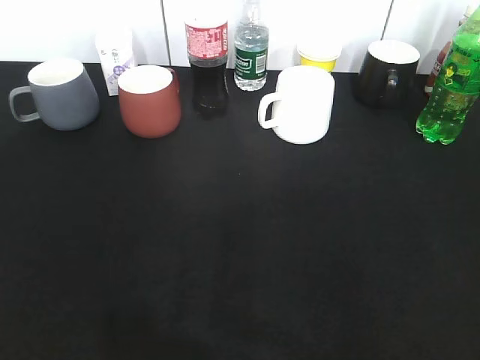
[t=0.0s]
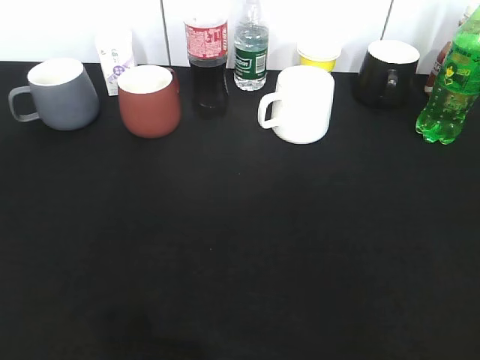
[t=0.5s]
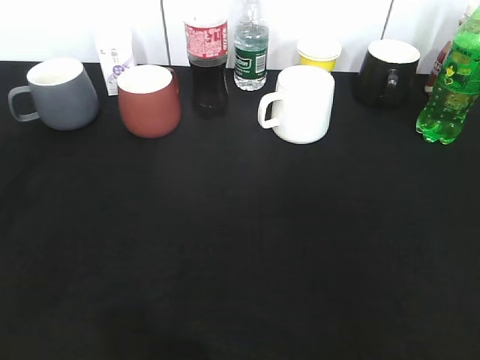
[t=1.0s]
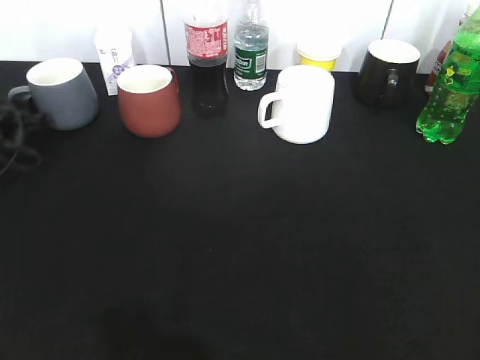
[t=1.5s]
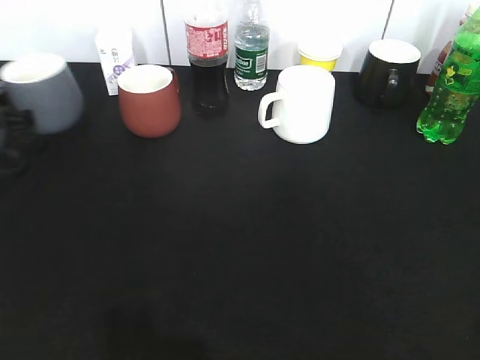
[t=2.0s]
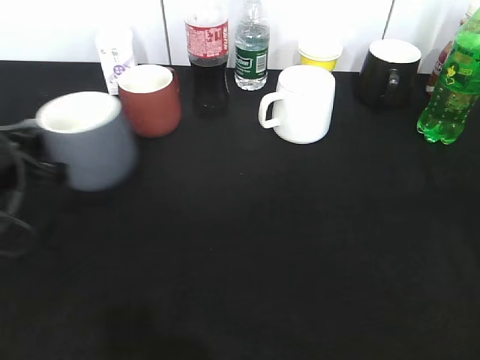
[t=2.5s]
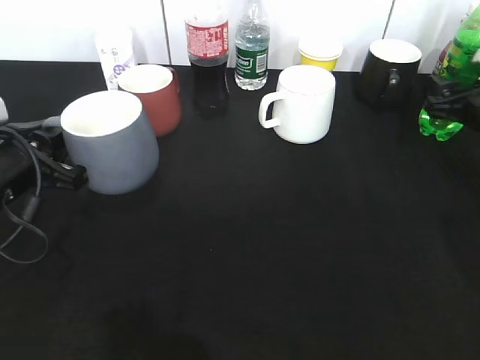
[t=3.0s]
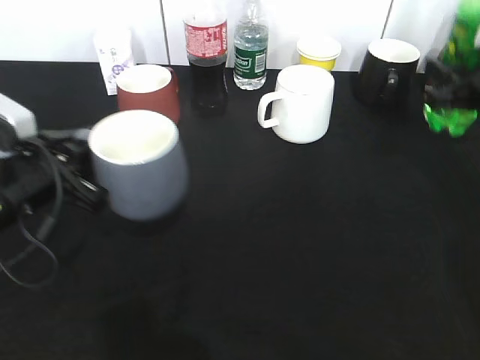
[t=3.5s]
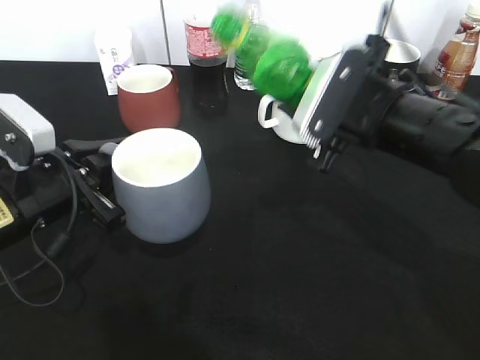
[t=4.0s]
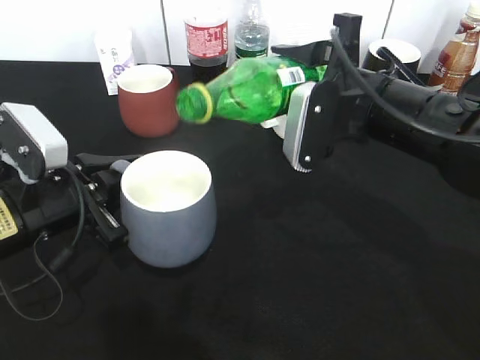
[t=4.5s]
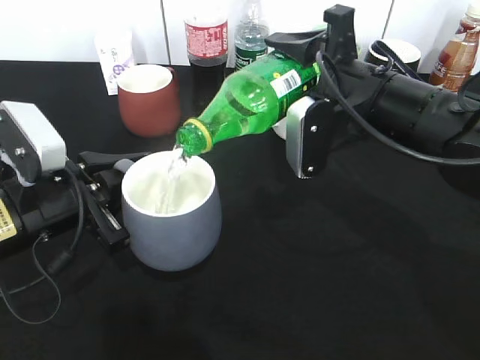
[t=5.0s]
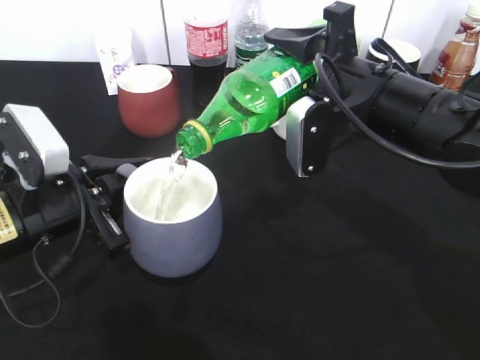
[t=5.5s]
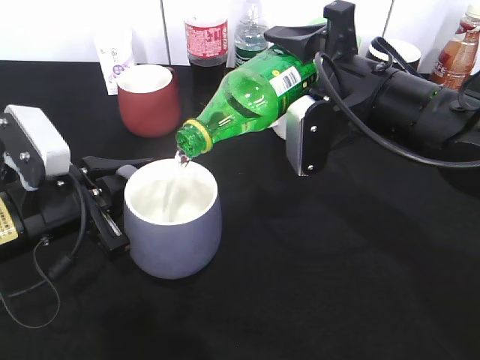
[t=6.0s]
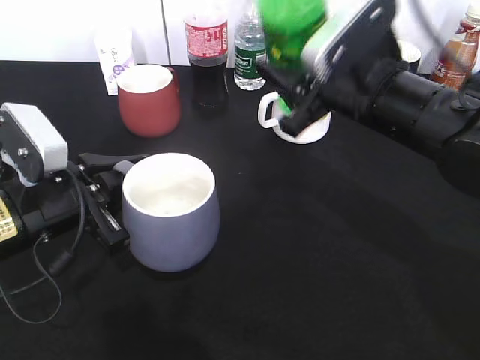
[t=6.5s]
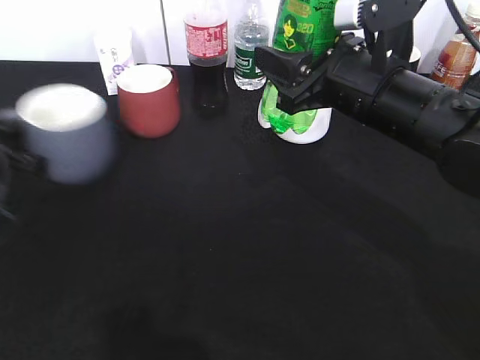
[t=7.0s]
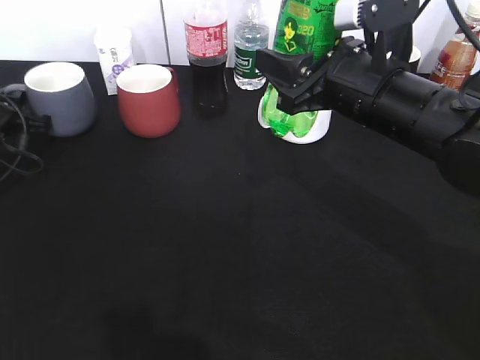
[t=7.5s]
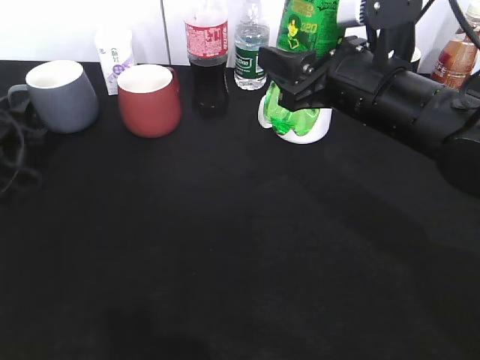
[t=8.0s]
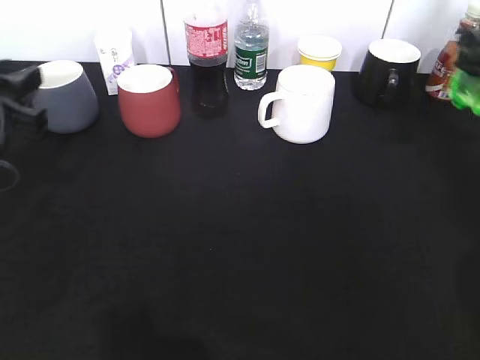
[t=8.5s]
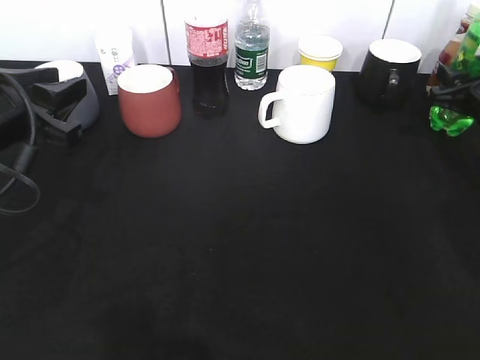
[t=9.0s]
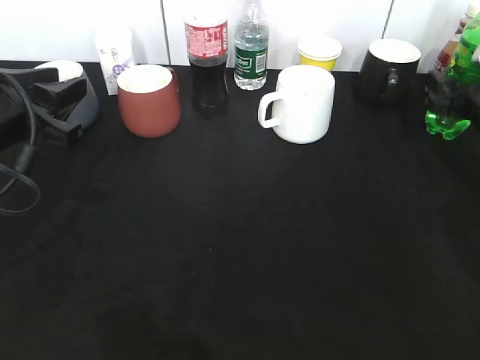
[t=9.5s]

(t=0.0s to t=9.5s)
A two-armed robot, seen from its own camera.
Step, t=3.5s - t=6.0s: Pour the sprite from bottle to cup with right gripper.
t=0.0s - t=2.0s: The left gripper travels forward by approximately 35 cm, and closes up.
t=2.0s - t=4.0s: The right gripper goes some 35 cm forward and to the left, and closes. The left gripper goes some 20 cm to the right and backward.
t=5.5s - t=7.5s: The left gripper travels forward and to the left by some 25 cm.
t=7.5s - t=9.5s: The right gripper moves to the right, downward and forward, some 25 cm, and opens its fingers; the left gripper shifts about 20 cm backward, upward and to the right, and opens its fingers.

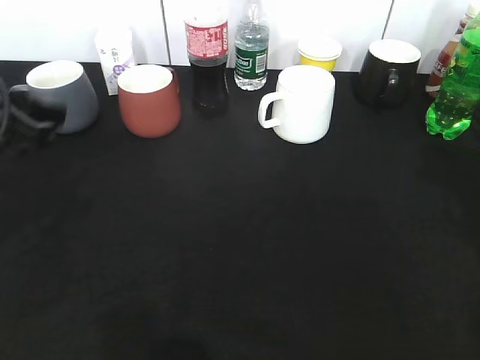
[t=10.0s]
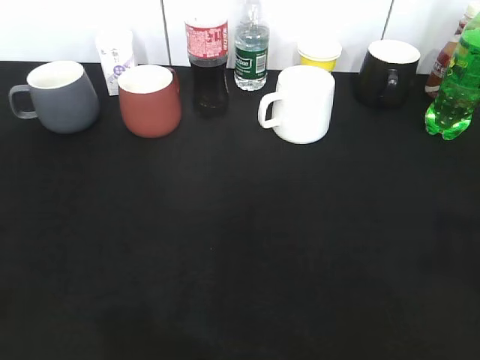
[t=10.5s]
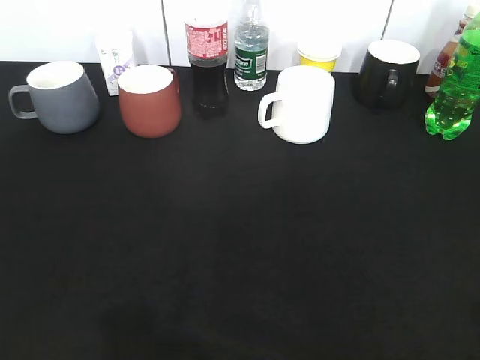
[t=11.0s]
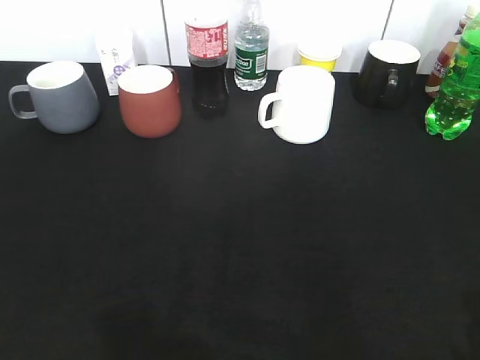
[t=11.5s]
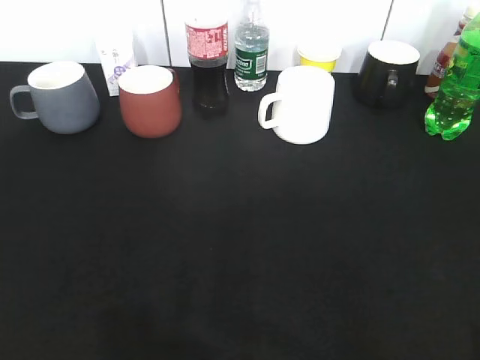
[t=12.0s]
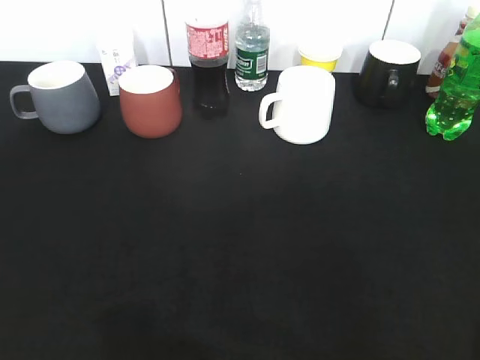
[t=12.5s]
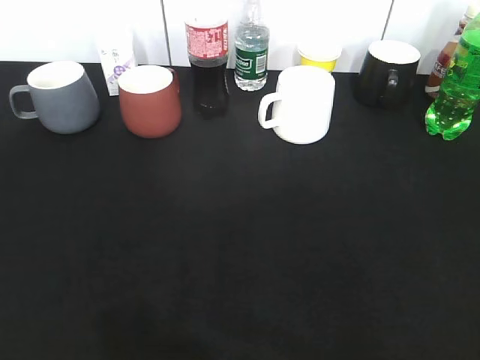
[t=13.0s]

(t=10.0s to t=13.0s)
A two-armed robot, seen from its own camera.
t=10.0s - t=11.5s: Both grippers move backward, about 25 cm.

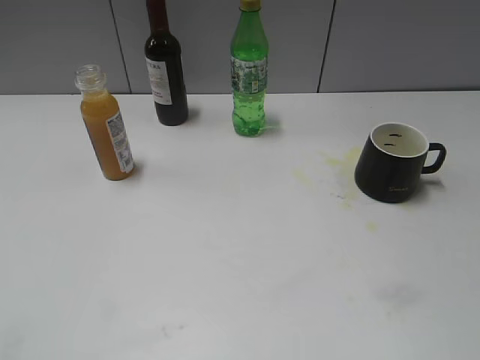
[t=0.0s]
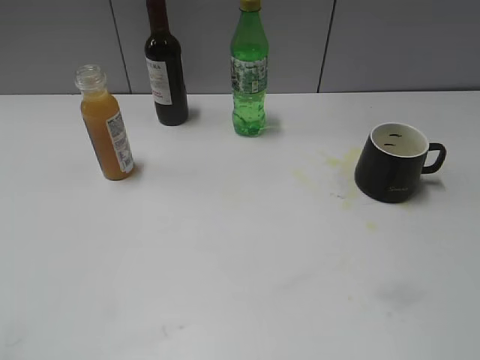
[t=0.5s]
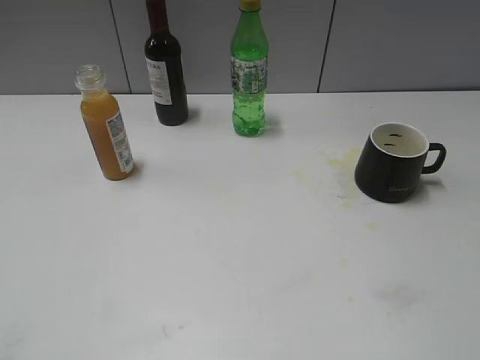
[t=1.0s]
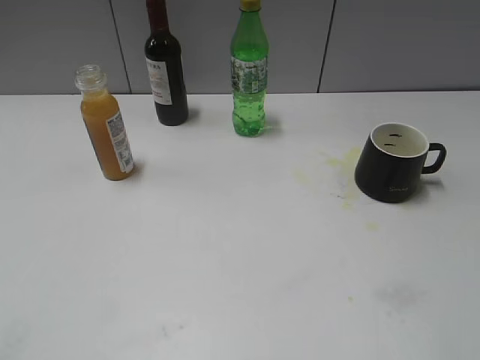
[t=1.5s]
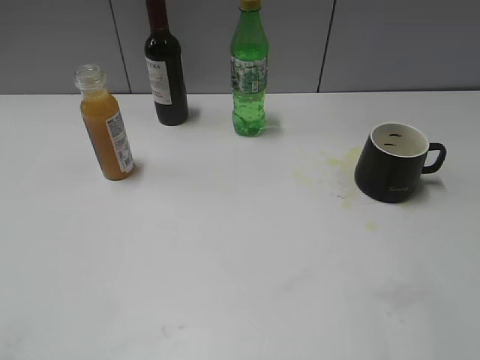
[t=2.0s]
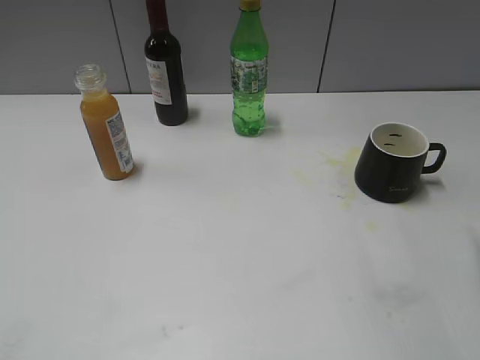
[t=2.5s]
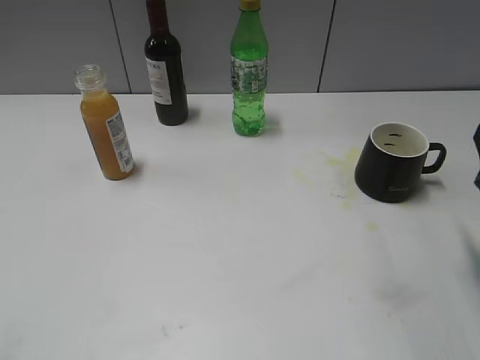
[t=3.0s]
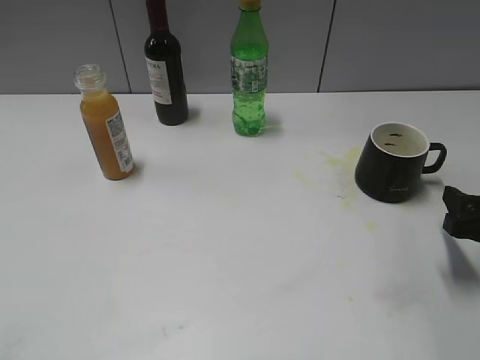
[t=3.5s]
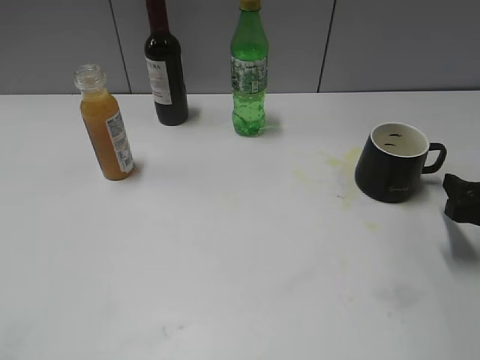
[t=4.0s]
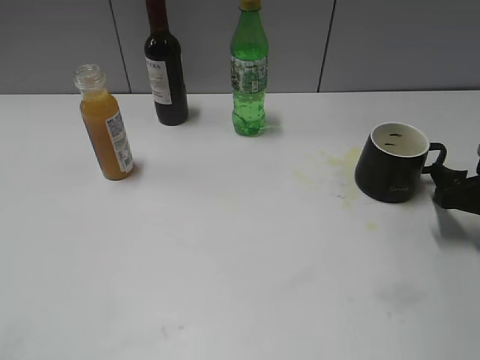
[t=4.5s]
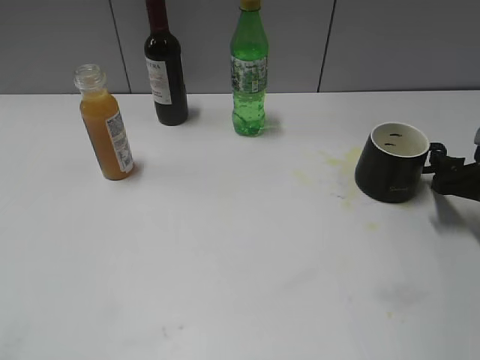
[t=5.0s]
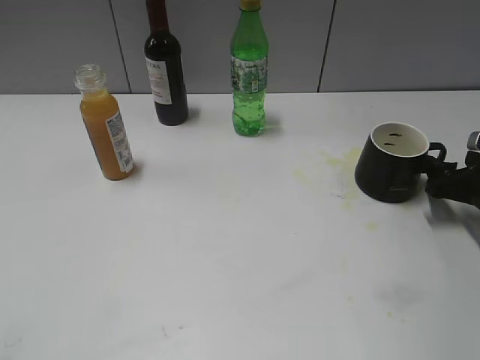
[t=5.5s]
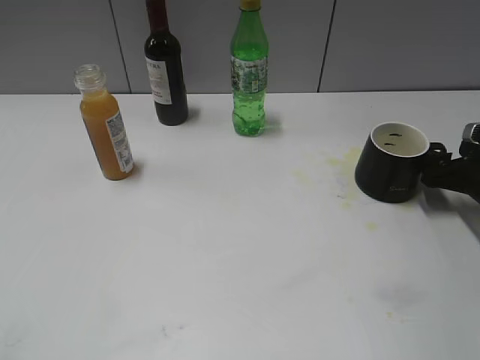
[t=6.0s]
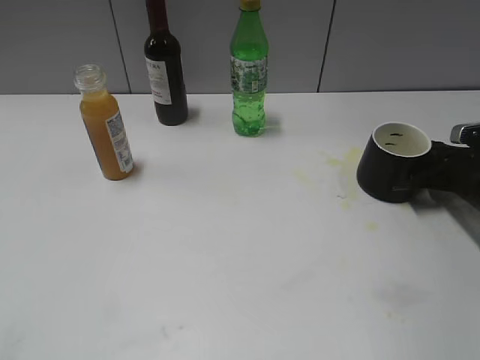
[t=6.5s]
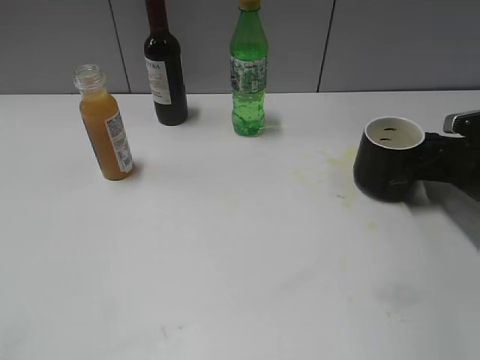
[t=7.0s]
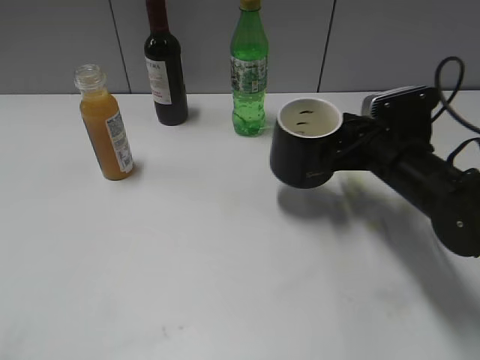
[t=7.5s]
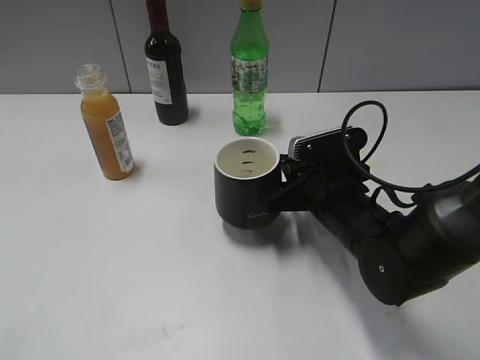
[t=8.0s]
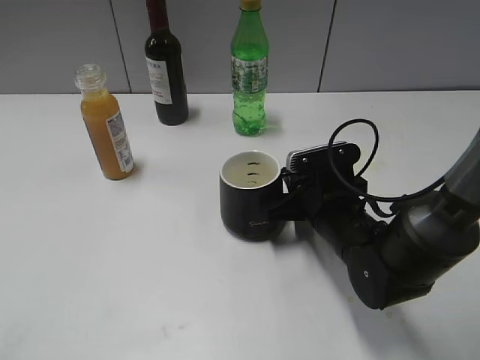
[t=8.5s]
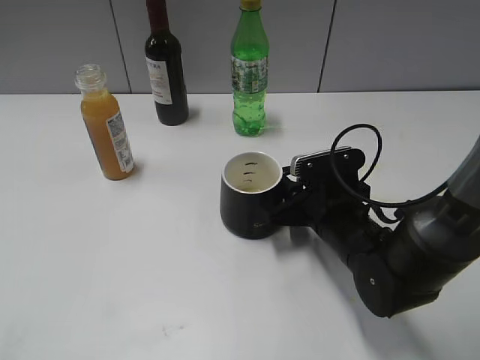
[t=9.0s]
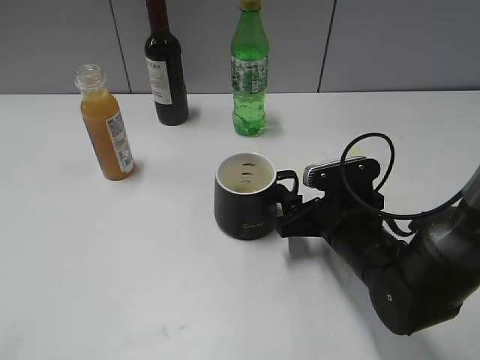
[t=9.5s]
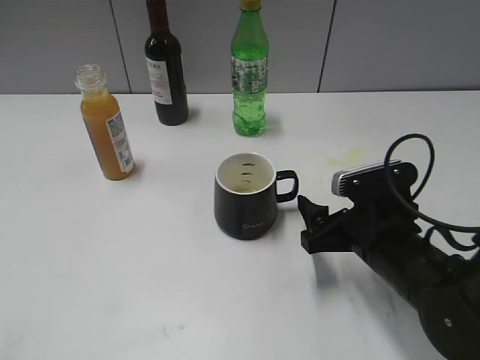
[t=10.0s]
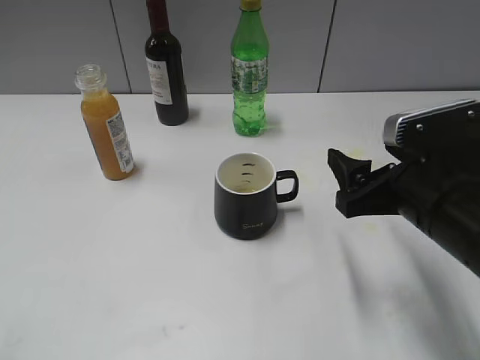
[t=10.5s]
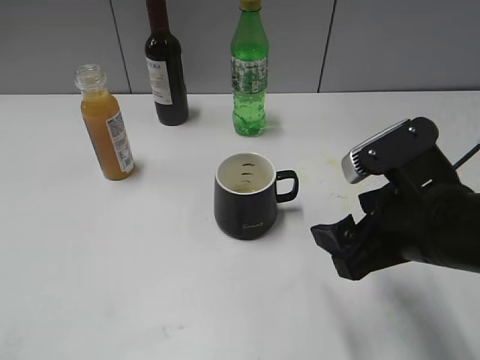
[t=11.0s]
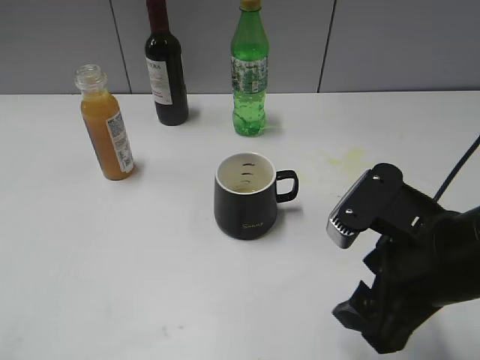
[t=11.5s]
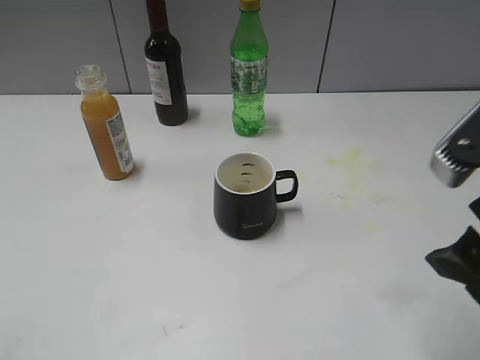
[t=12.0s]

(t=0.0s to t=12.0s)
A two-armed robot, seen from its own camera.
Step, t=3.0s - t=6.5s: Grasp the black cup with right gripper.
Step, t=7.0s - t=9.0s: Place the black cup in the center of view with right gripper.
t=2.0s - t=4.0s: The right gripper moves downward and forward, approximately 20 cm.
t=4.0s - t=6.0s: The right gripper heads forward, covering approximately 10 cm.
t=6.0s - t=8.0s: The right gripper goes about 20 cm to the left, and closes up.
t=8.0s - t=10.0s: The right gripper ends up roughly 5 cm from where it was, and opens.
t=10.0s - t=12.0s: The right gripper is displaced upward and backward by approximately 20 cm.

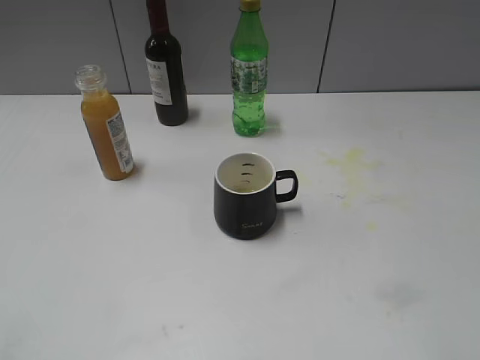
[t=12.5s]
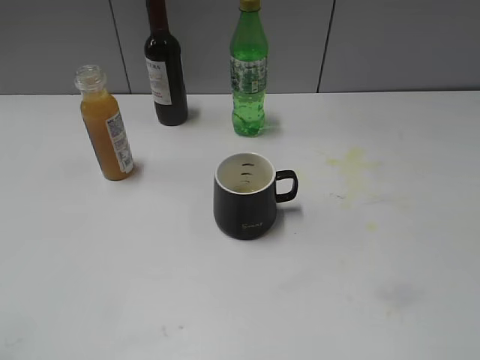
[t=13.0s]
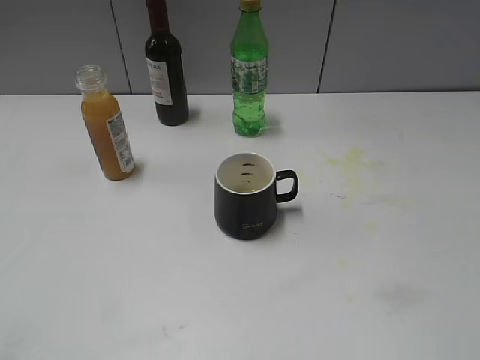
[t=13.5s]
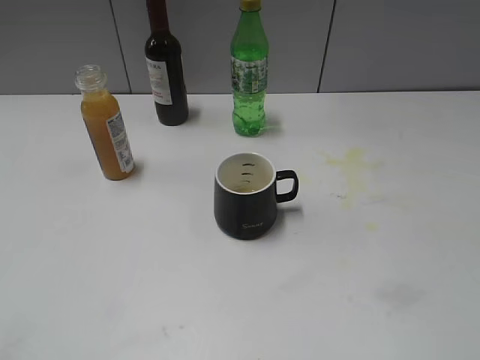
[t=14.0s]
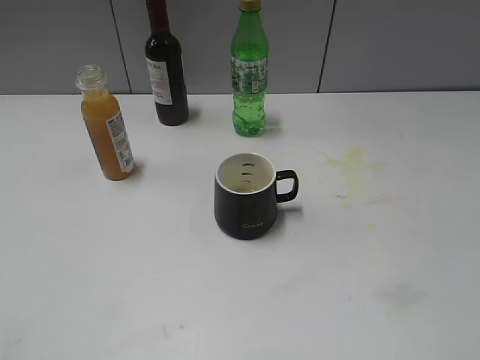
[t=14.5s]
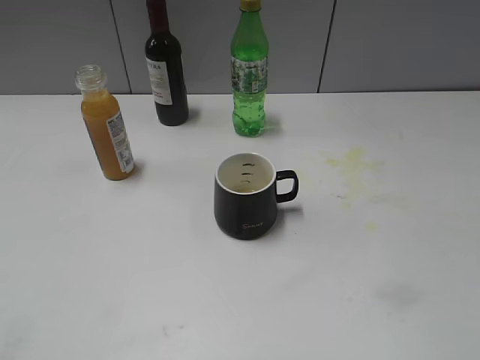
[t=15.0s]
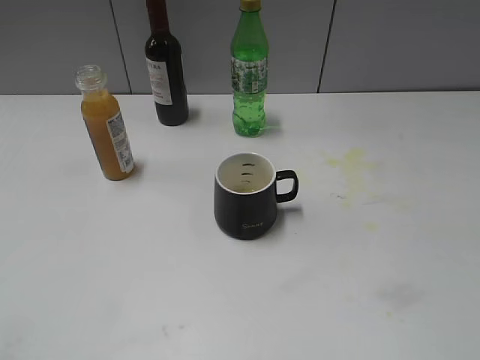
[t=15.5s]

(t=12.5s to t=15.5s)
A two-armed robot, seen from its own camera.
t=14.0s - t=15.5s: Both grippers stay put.
